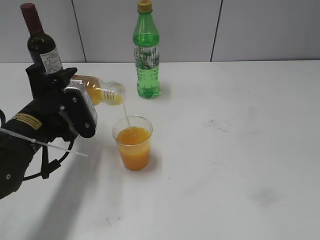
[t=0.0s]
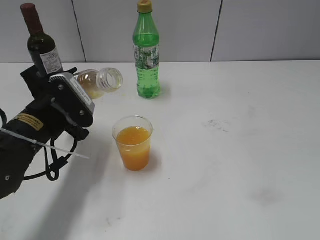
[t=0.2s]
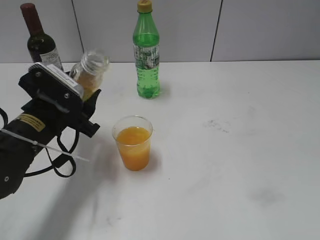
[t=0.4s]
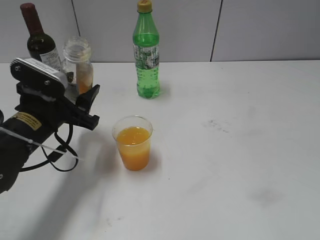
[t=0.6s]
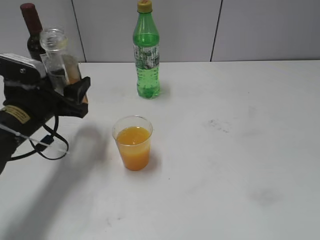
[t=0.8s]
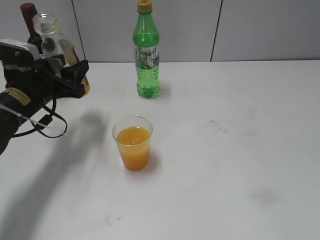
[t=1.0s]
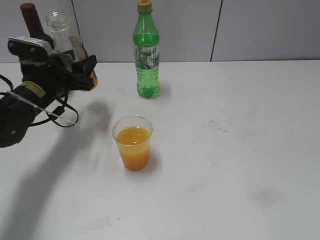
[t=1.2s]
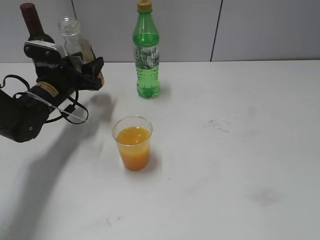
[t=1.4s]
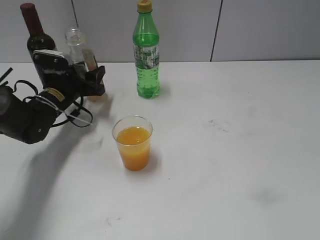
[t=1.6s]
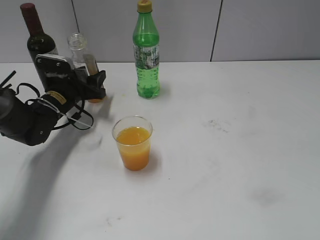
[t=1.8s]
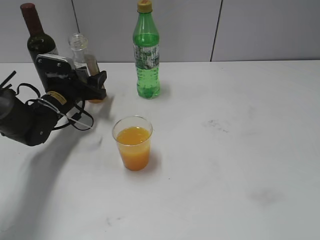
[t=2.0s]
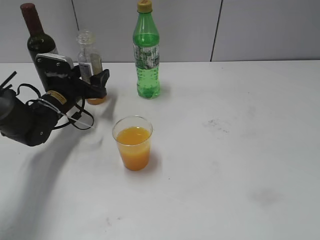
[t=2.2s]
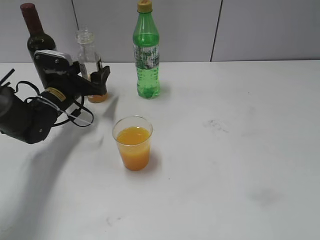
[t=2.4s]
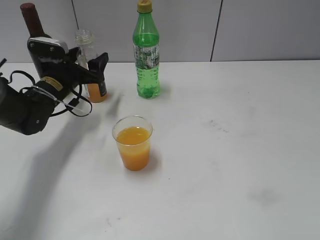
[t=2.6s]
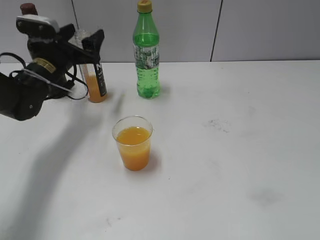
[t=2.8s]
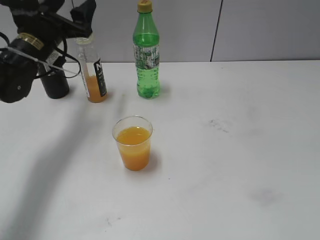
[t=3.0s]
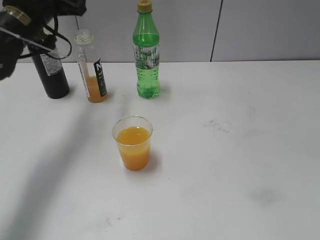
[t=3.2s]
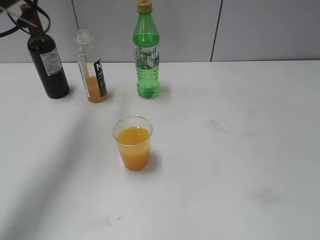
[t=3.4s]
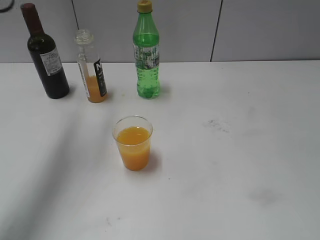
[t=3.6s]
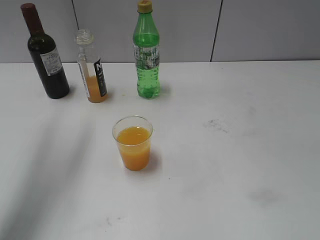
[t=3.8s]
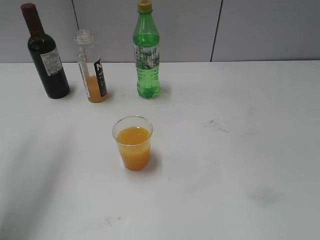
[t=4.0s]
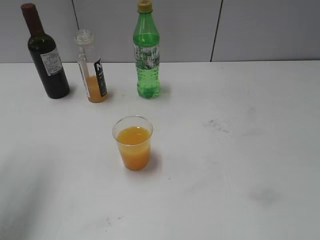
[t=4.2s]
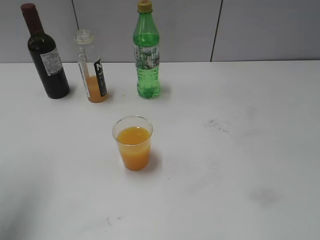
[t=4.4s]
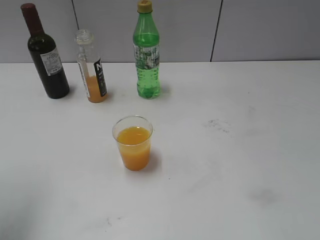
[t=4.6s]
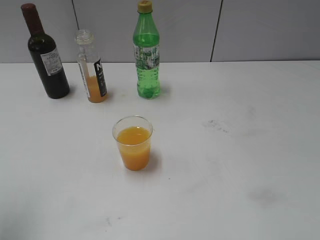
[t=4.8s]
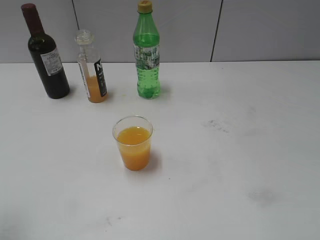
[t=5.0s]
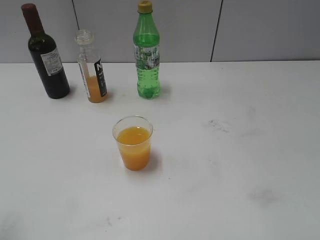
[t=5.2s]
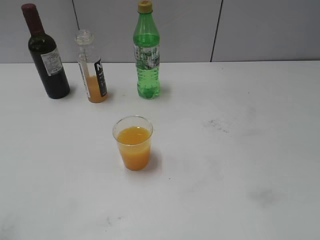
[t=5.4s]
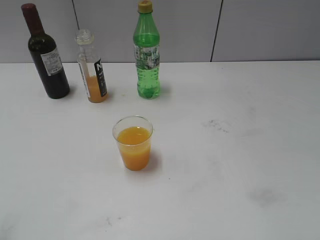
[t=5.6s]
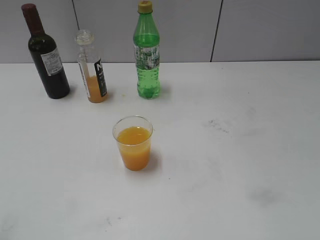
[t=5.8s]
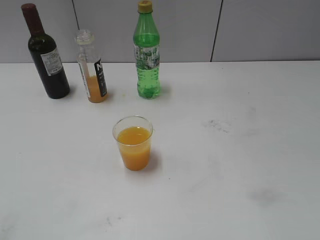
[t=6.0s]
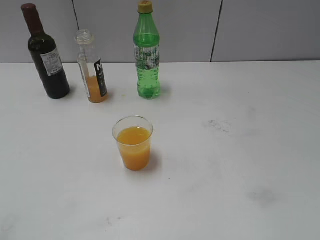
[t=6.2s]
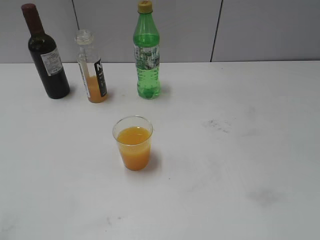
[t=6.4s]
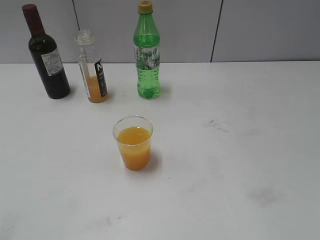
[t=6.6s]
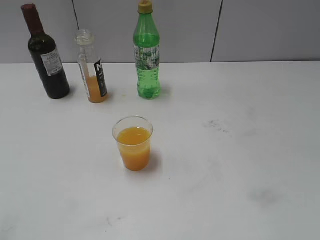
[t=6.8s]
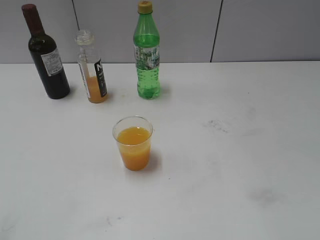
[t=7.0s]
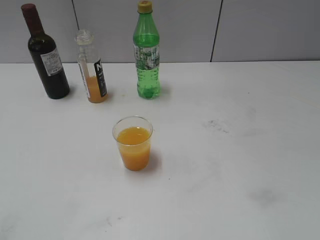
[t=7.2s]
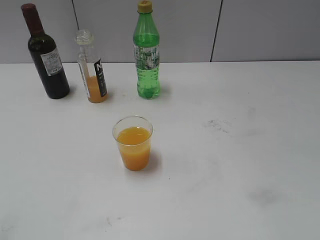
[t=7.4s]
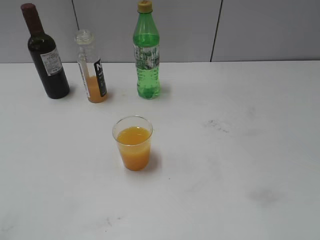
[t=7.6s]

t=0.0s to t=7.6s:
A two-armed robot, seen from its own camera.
Step, t=0.4s to t=2.2s: Place the orange juice bottle on the table with left gripper.
t=0.0s to t=1.6s: The left gripper travels forward and downward by about 15 cm.
t=1.6s to t=3.0s: The left gripper shifts some 10 cm upward, and opens up.
t=3.0s to t=4.6s: The left gripper travels backward, upward and to the left by approximately 30 cm, and closes up.
t=4.6s to t=6.0s: The left gripper heads backward and downward, covering approximately 15 cm.
